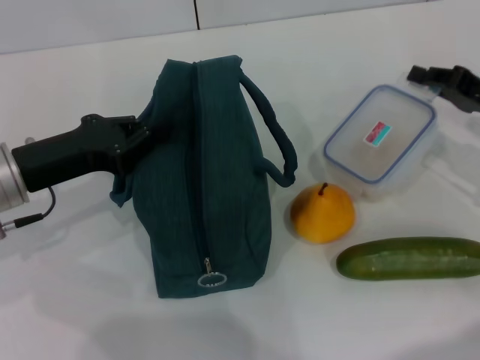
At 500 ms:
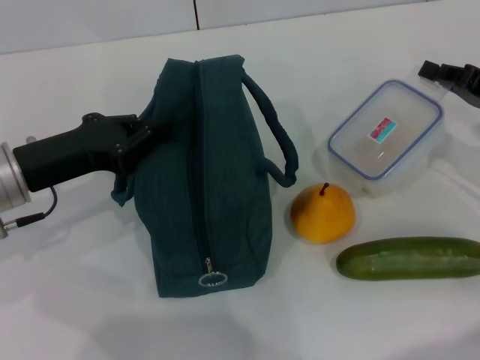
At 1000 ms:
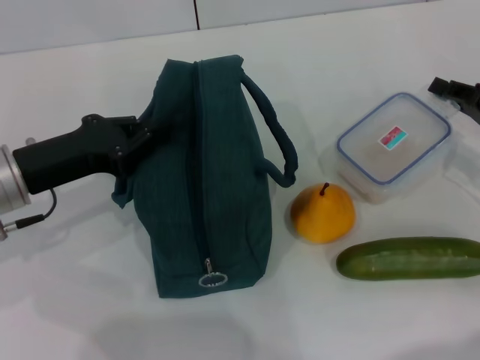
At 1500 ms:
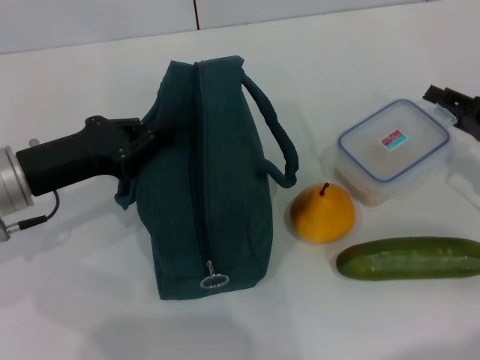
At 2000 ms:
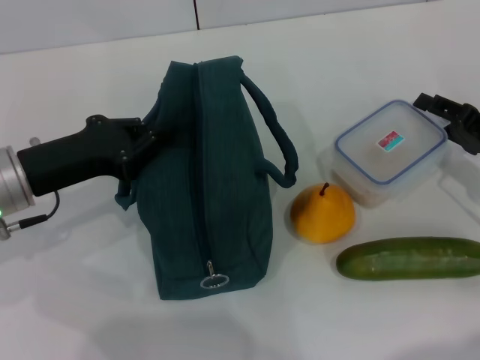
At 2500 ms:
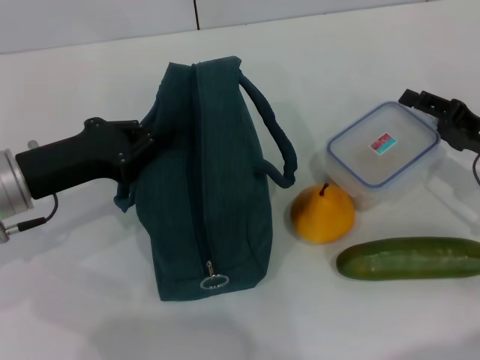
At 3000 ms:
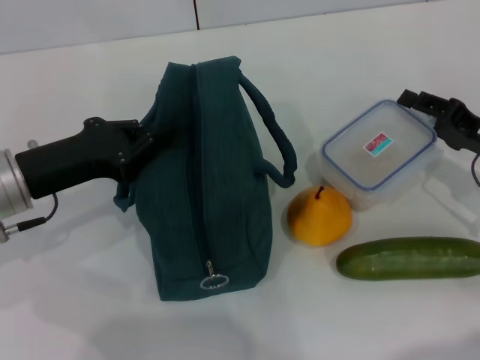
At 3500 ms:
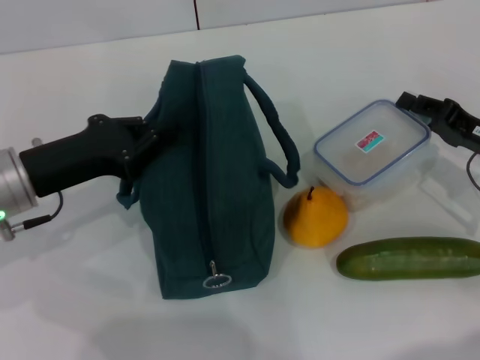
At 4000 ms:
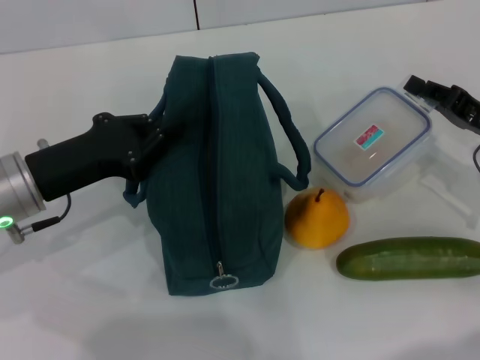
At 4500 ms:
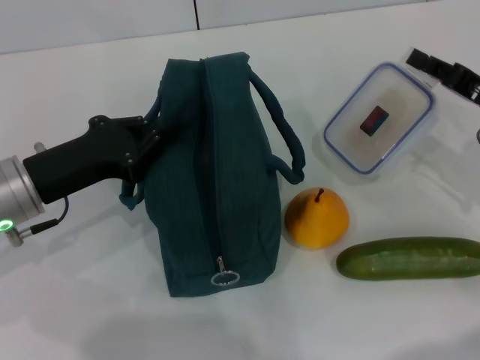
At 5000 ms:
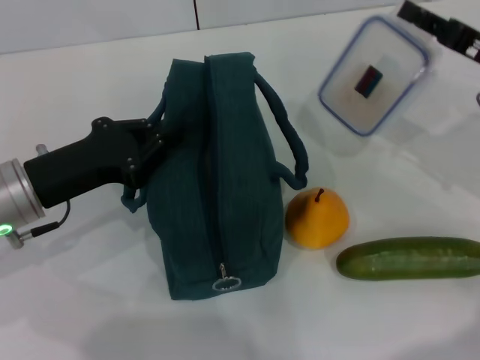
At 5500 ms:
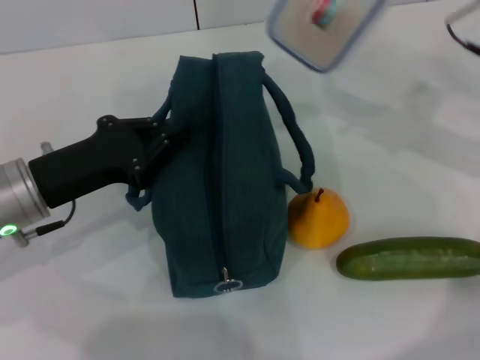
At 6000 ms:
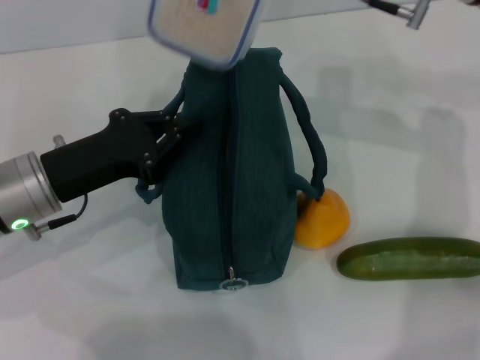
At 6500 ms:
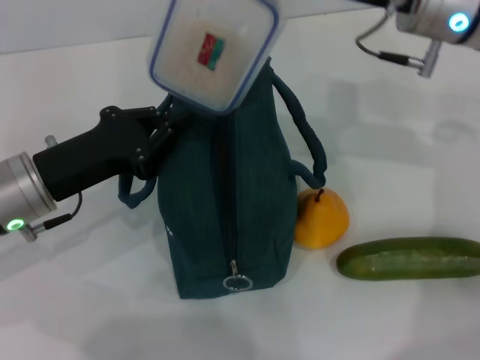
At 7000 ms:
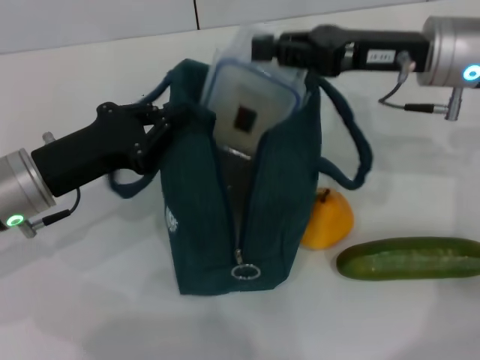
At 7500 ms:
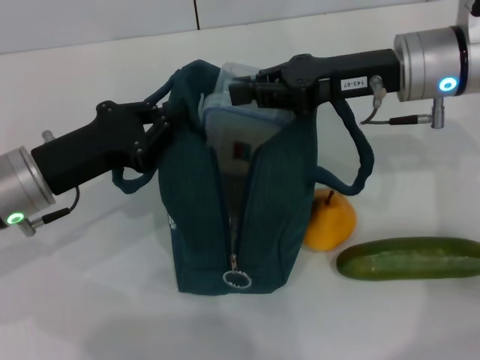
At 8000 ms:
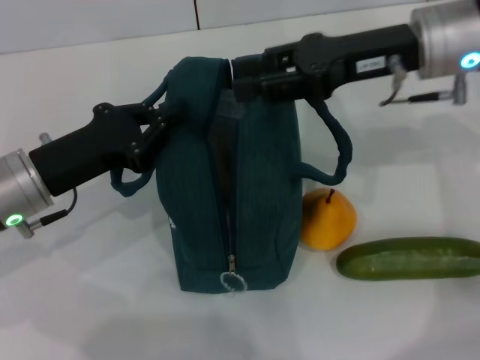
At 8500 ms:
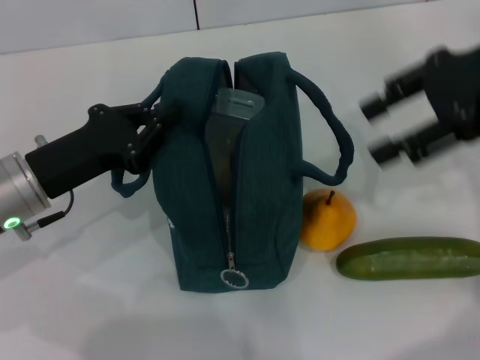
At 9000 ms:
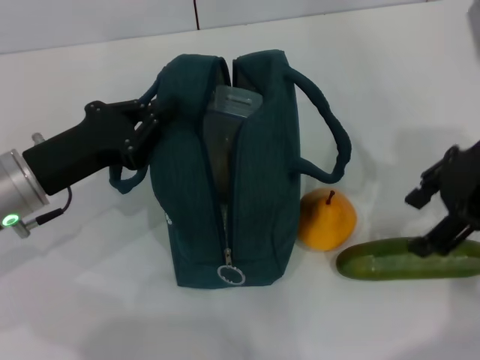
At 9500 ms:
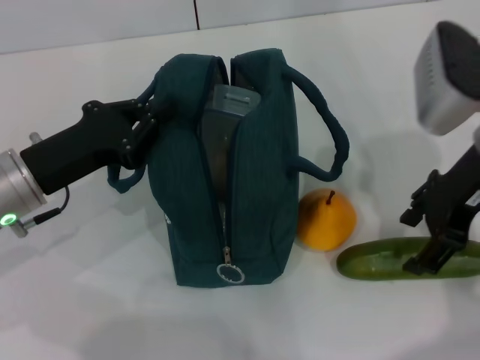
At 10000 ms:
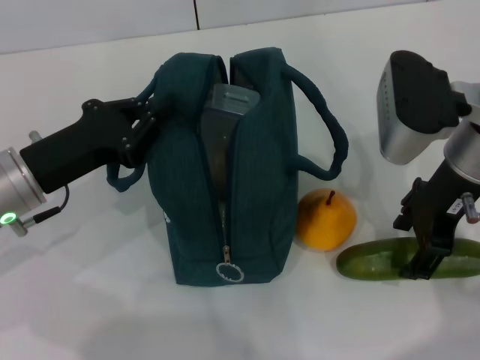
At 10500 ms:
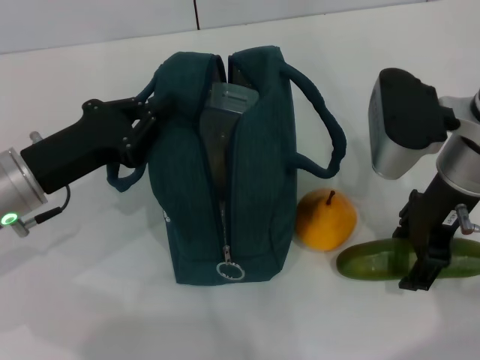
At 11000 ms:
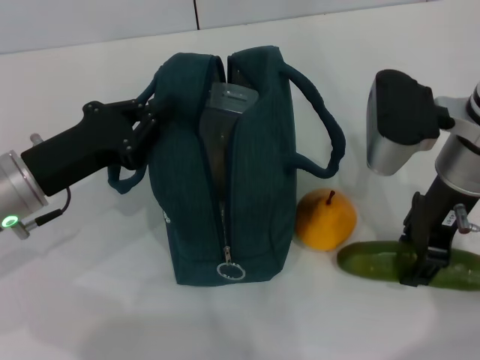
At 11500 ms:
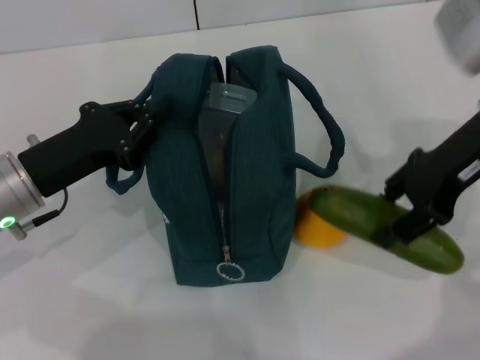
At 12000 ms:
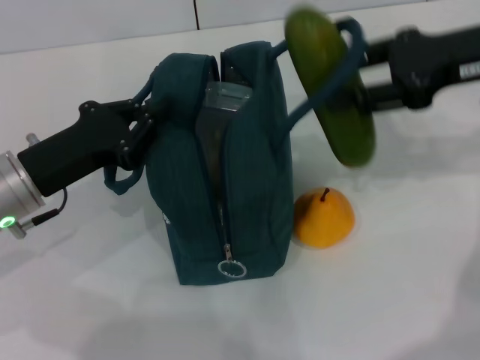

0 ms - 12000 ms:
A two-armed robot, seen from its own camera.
Step, 0 ms - 4000 ms: Pick up the lunch box with your right hand.
Step, 4500 ms - 7500 ms: Place the lunch box into the lunch bag with your right hand.
Step, 8000 ms - 10500 ms: Pick up the cucumber with your right hand.
0 ms - 2000 ms: The right gripper ends up some 5 cm from where it was, and opens.
2000 ms - 4000 ms: The right gripper closes.
4000 ms - 6000 ms: The right gripper goes roughly 25 cm upward, to the left and forward.
8000 ms - 10000 ms: The right gripper moves backward, some 5 cm, moves roughly 5 cm upward and comes back, and opens up.
10000 ms - 12000 ms: The right gripper heads to the right and upward, covering about 10 cm.

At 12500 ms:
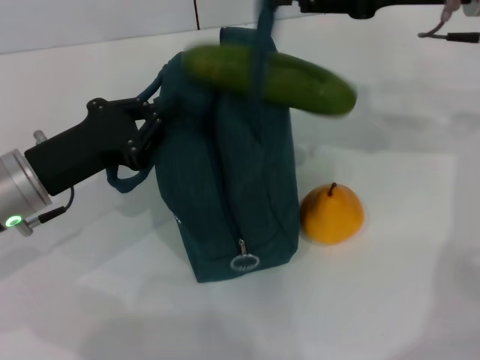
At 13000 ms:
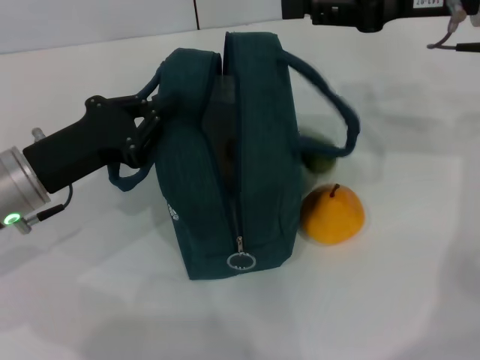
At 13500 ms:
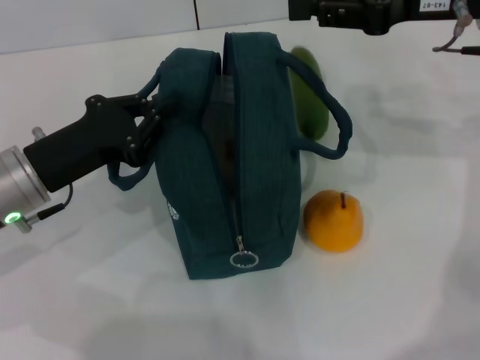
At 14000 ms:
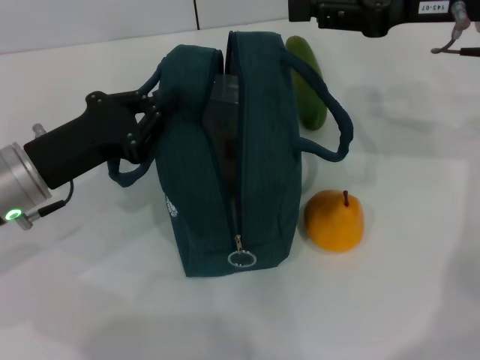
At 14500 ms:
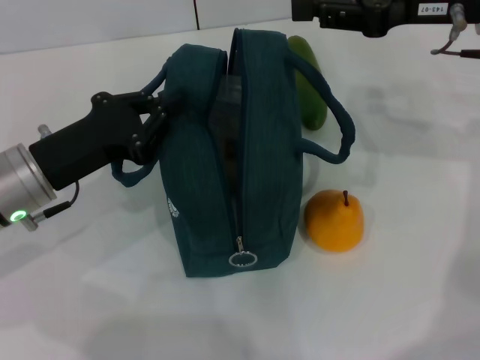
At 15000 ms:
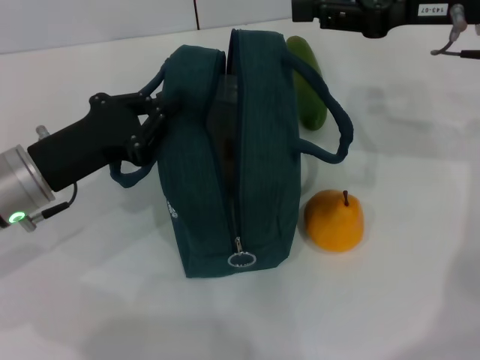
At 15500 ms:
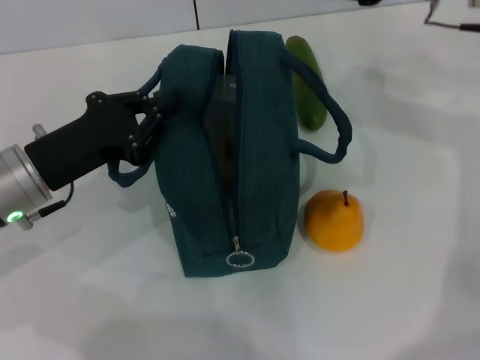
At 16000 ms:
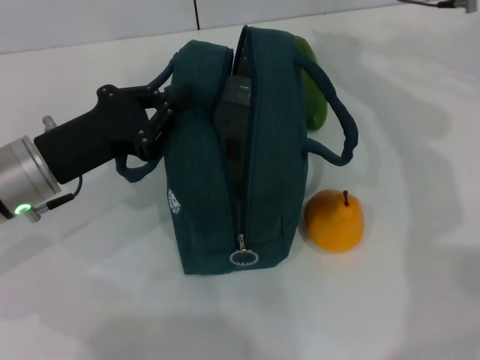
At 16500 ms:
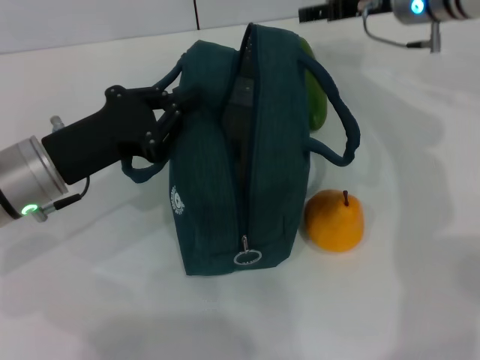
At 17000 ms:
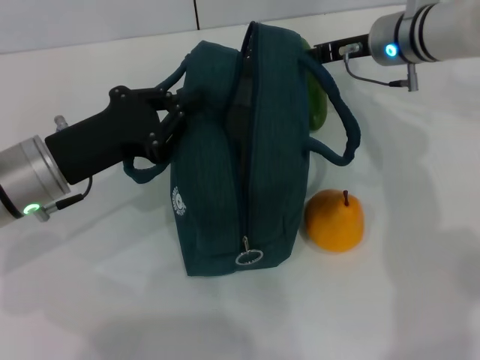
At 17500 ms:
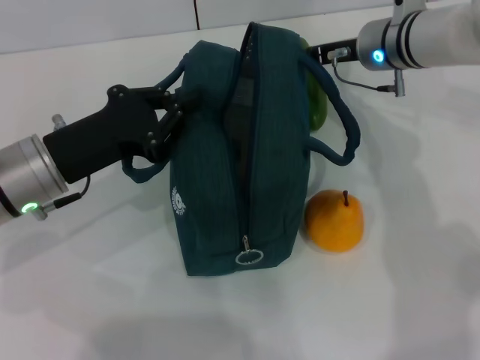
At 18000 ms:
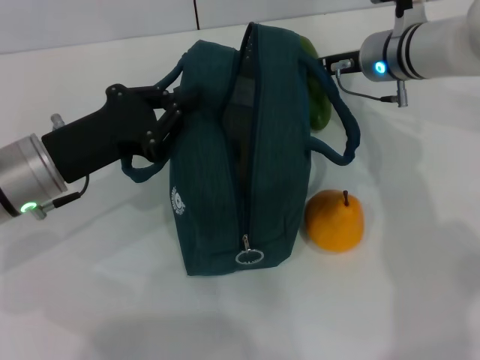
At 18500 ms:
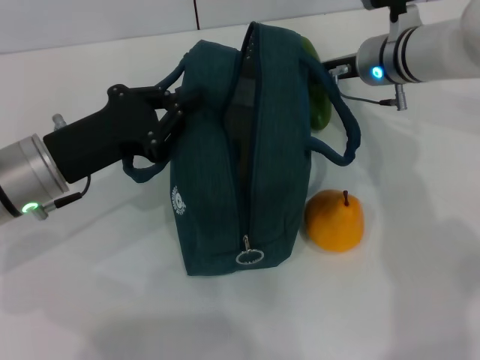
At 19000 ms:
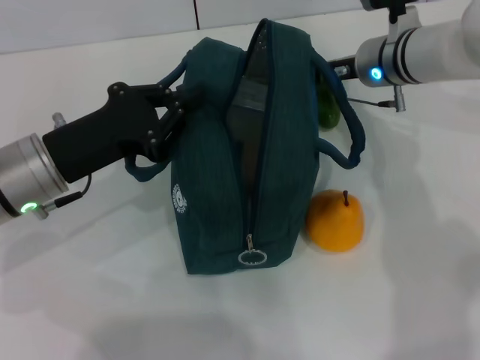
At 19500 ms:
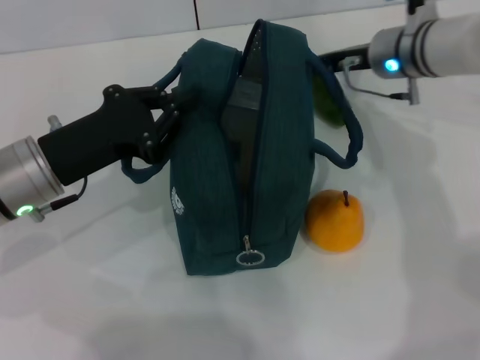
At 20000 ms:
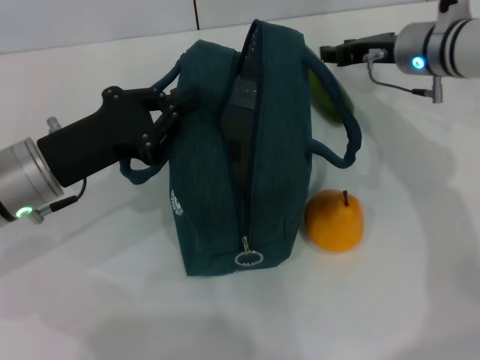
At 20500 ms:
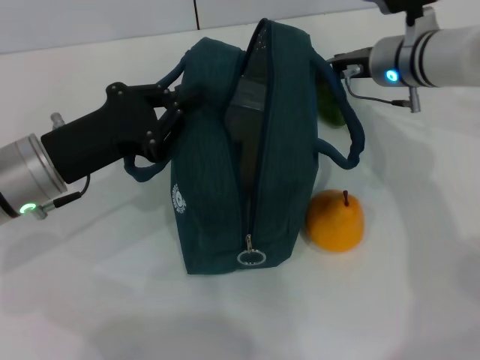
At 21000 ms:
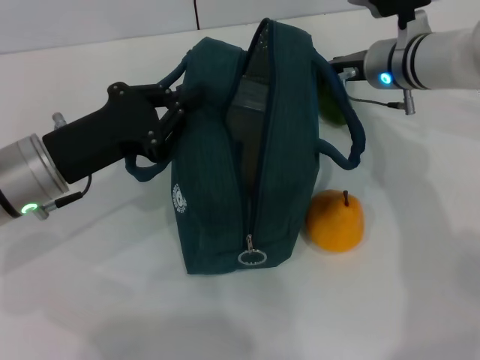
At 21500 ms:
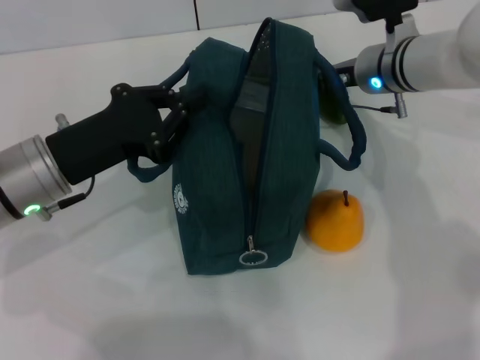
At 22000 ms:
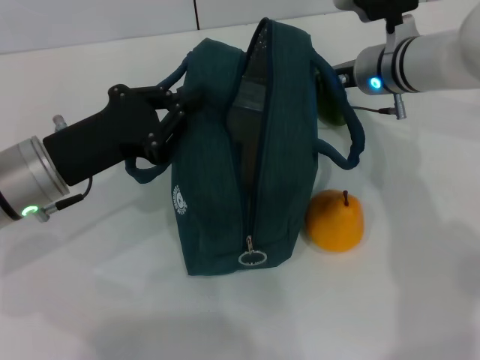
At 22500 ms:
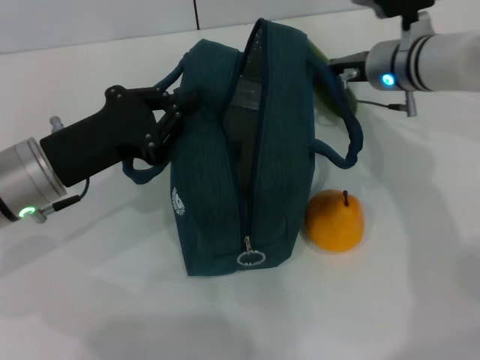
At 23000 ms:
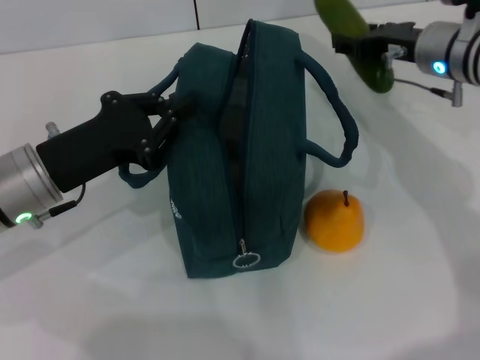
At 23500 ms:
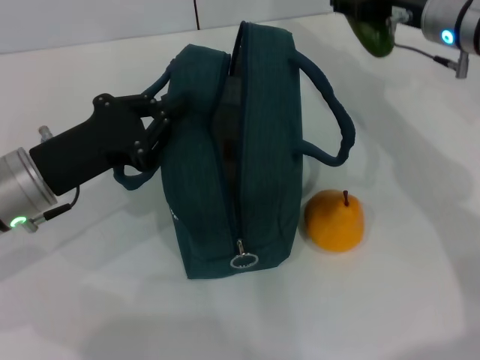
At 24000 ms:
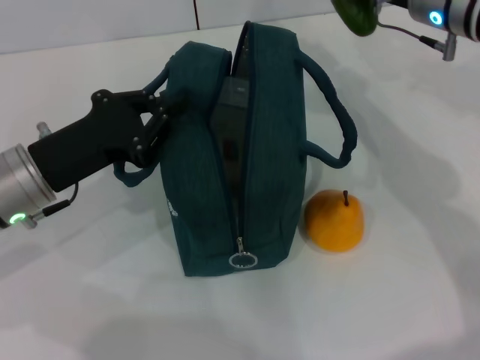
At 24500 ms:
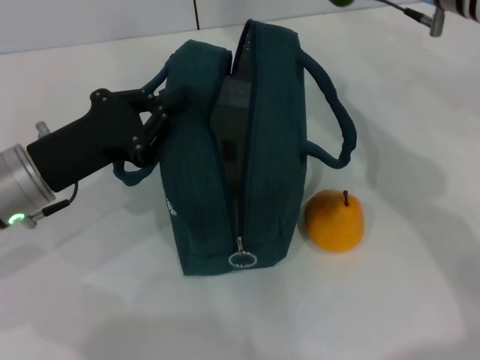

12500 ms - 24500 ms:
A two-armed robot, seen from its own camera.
12500 ms - 14500 ms: There are only small adjustments of the grippers.
14500 ms - 16500 ms: The right gripper heads forward and downward, covering some 10 cm, and opens up.
16500 ms - 18500 ms: The right gripper goes approximately 5 cm downward.
18500 ms - 20500 ms: The right gripper closes, then reopens.
20500 ms - 22500 ms: The grippers move only a little.
22500 ms - 24500 ms: The right gripper travels upward by approximately 10 cm.

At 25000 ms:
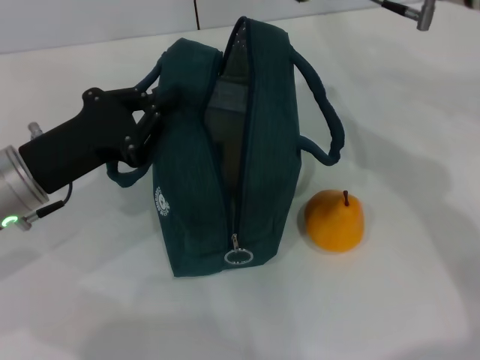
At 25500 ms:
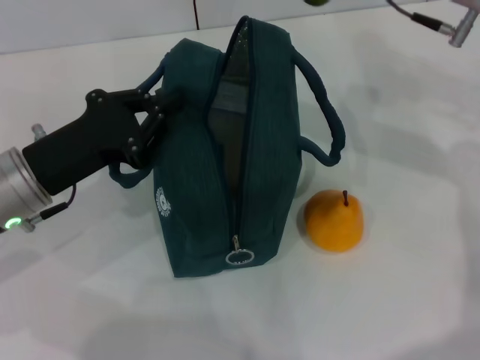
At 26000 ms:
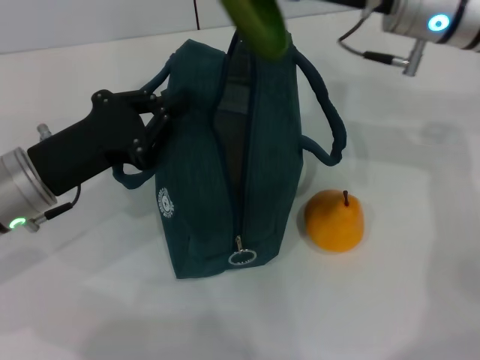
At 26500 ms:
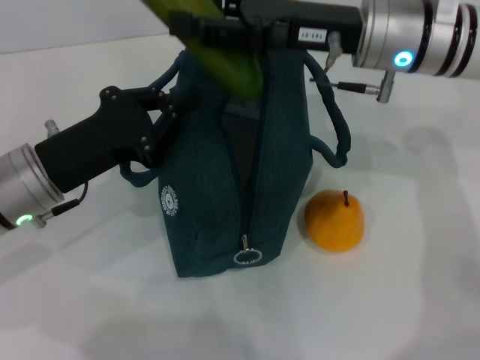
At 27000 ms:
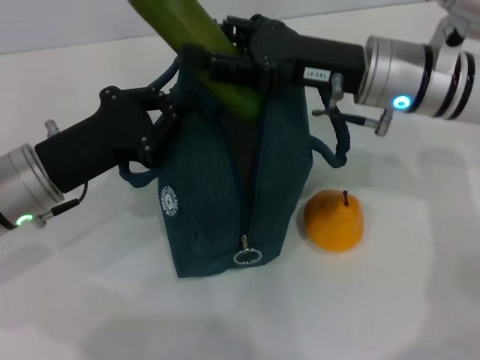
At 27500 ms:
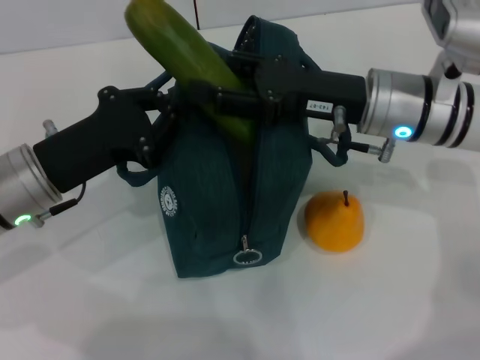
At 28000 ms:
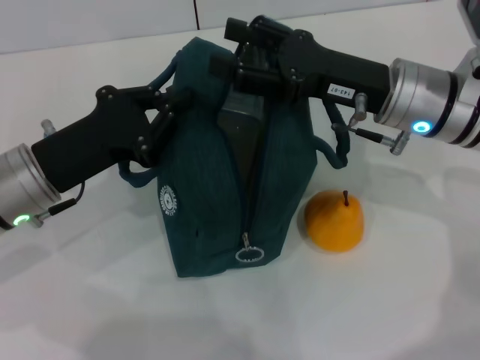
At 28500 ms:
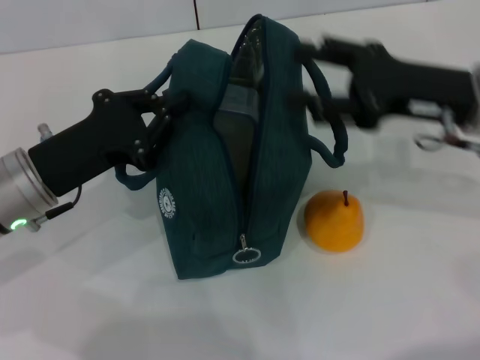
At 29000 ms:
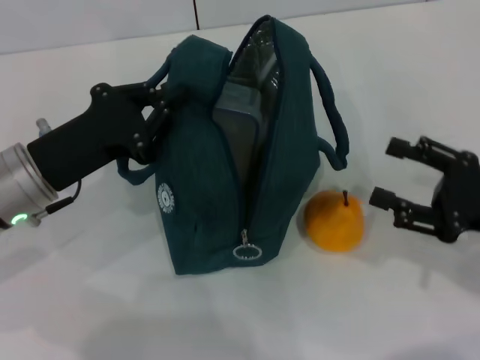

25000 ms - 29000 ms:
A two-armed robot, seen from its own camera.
Step, 25000 ms - 28500 ms: Put the cucumber into the lunch bag with your right hand.
25000 ms - 27000 ms: The right gripper heads downward, covering about 10 cm.
27000 ms - 29000 ms: The right gripper is displaced backward, to the right and downward by roughly 20 cm.
